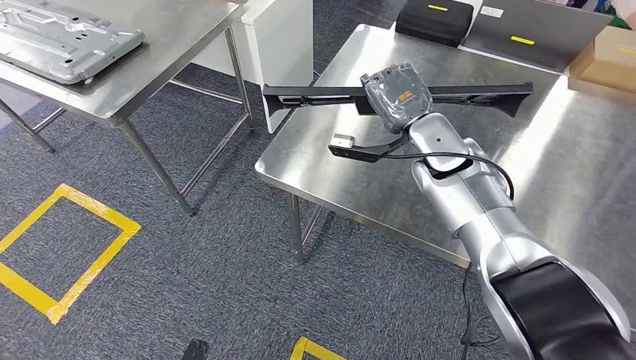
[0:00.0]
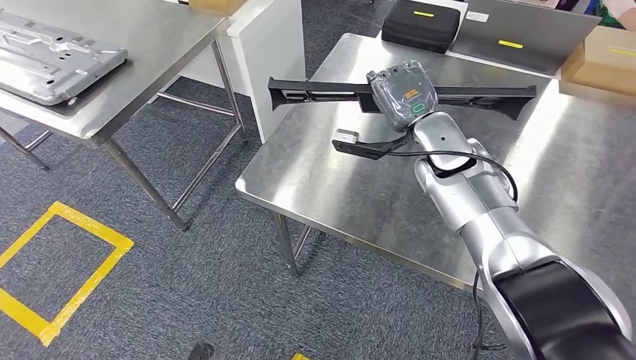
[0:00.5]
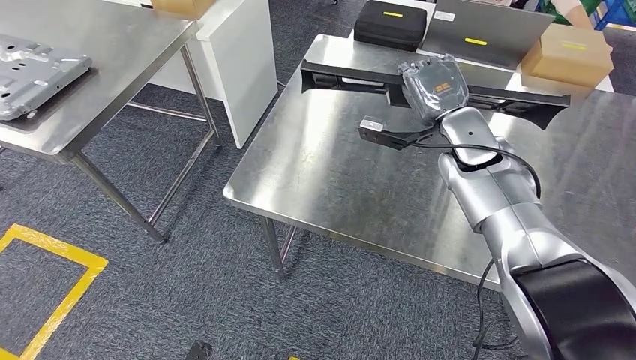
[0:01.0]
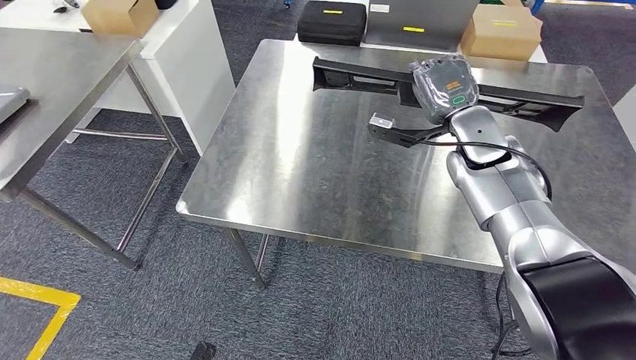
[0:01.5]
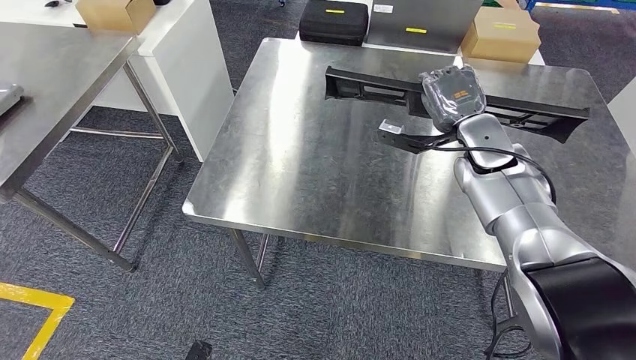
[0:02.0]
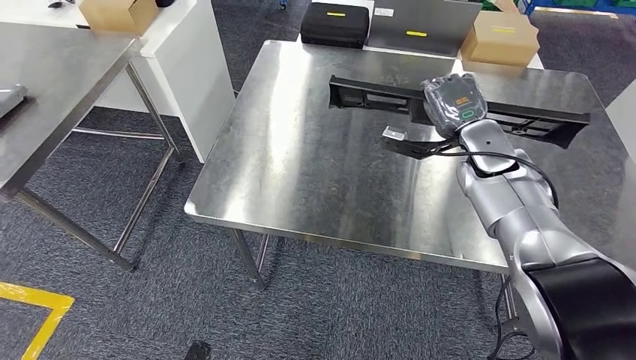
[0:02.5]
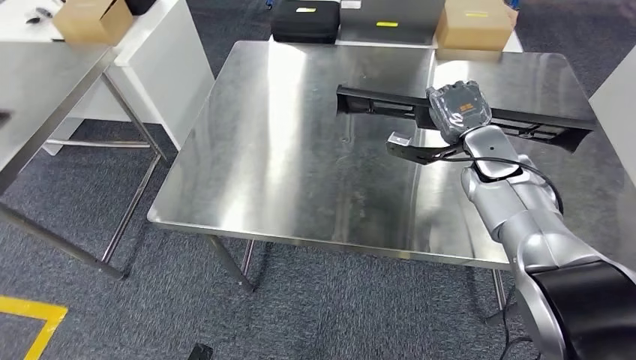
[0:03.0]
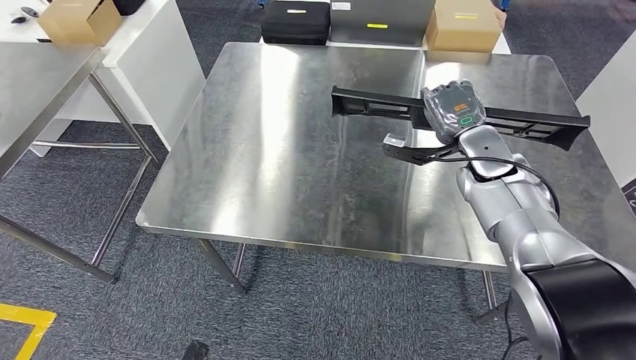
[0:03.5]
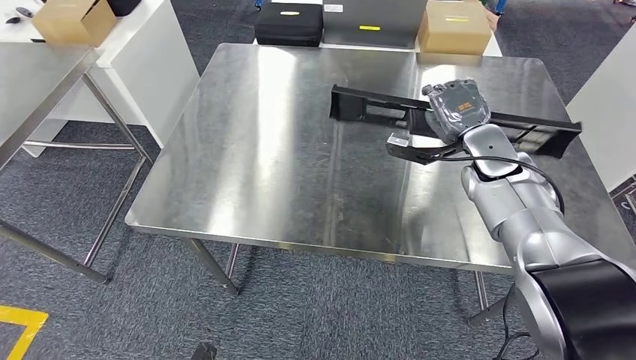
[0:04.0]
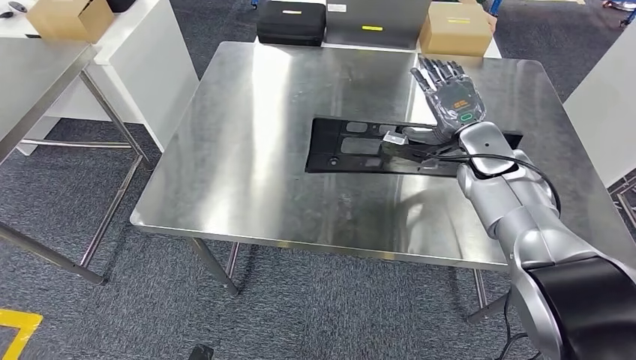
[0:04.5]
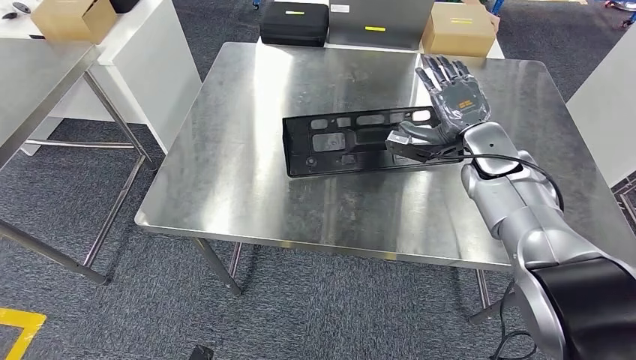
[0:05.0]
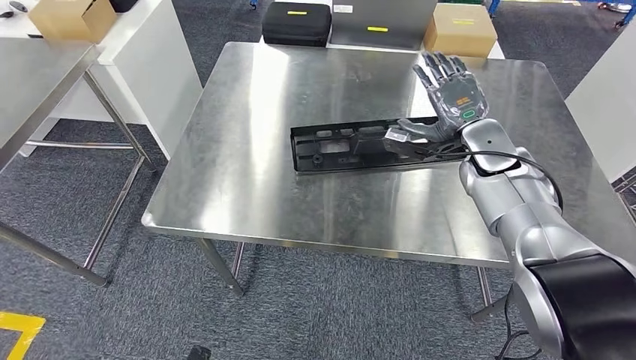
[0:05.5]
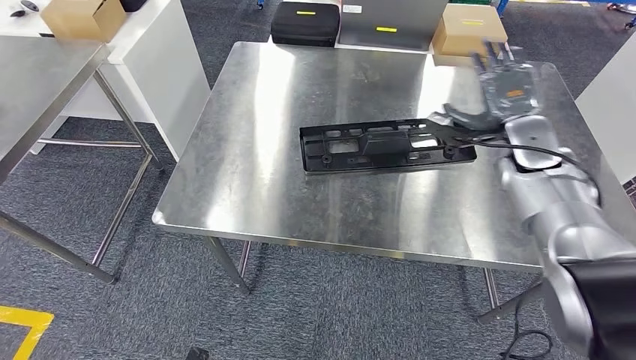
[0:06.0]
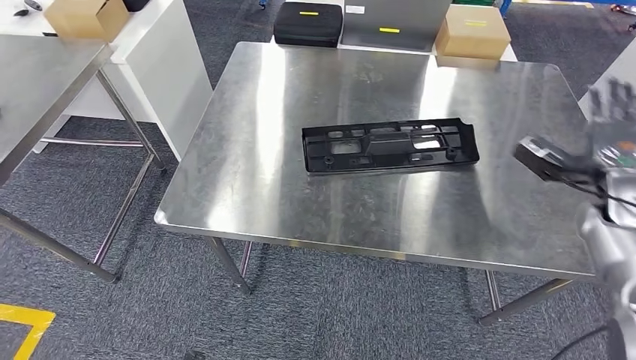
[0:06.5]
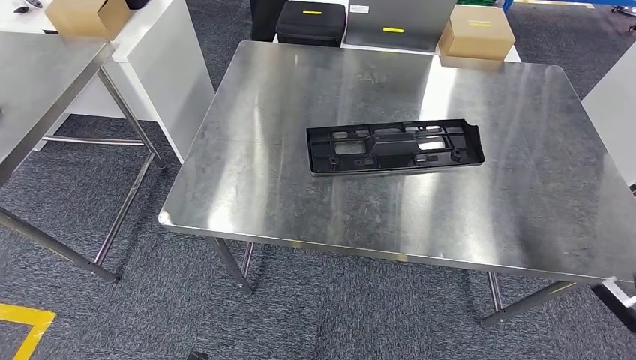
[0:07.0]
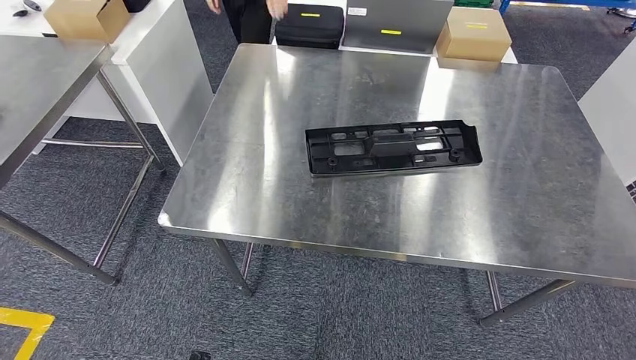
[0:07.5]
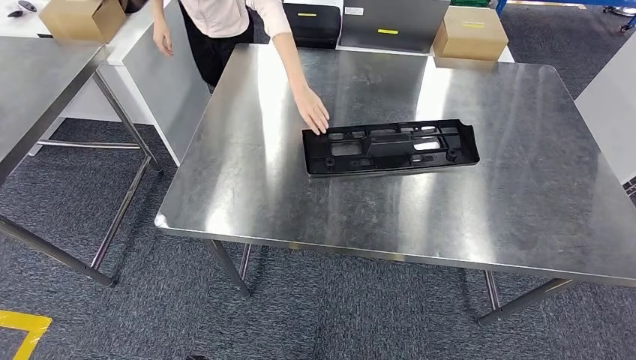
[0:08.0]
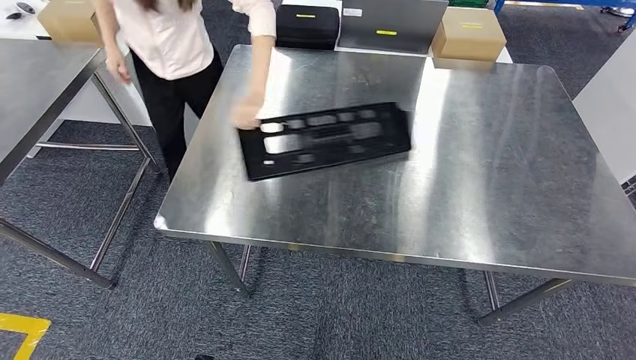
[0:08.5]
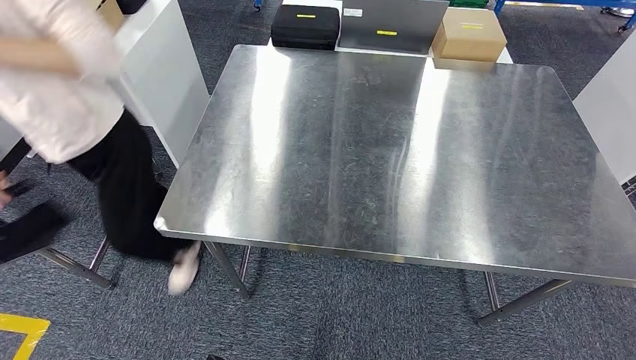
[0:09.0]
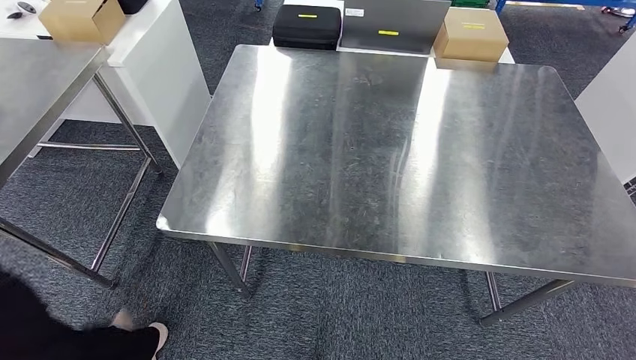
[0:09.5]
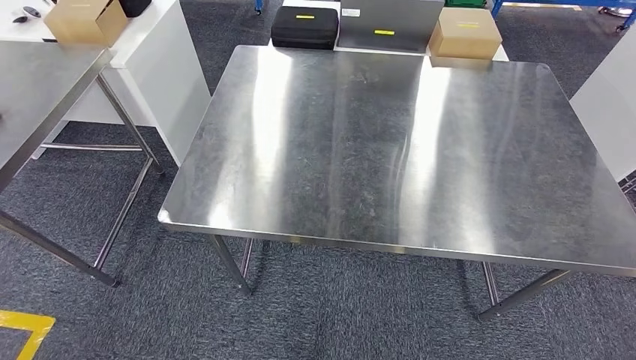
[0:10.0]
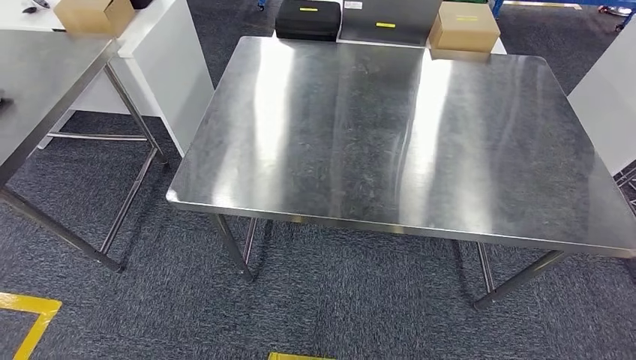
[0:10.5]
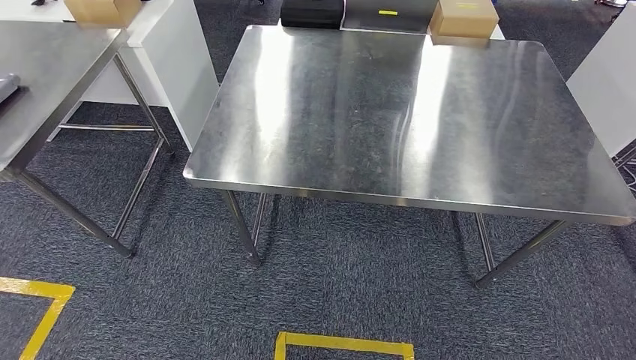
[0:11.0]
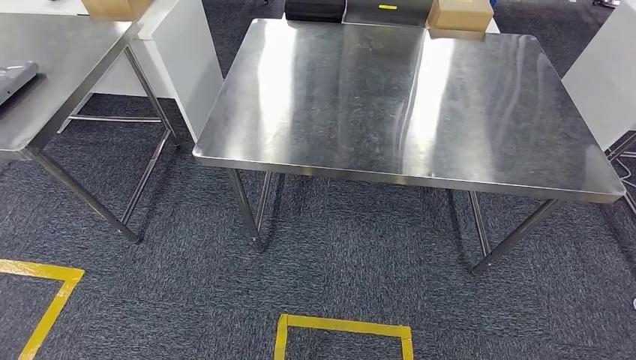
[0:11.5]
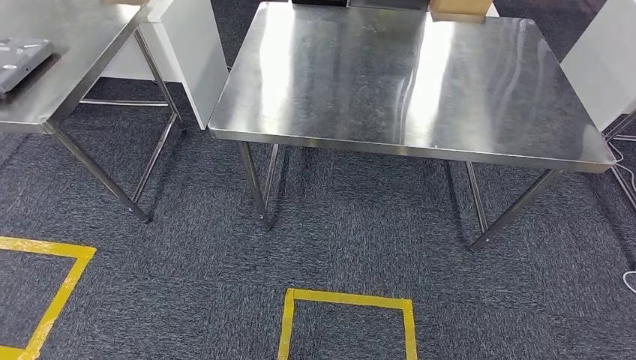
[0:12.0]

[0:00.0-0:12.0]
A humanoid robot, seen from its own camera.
Step, 0:00.0 to 0:09.5: Insert the large material into the corresponding slot on the workbench.

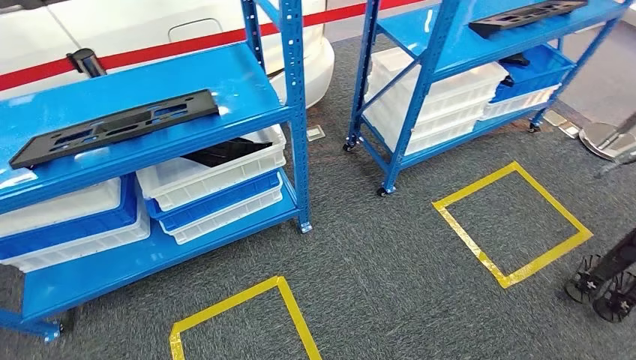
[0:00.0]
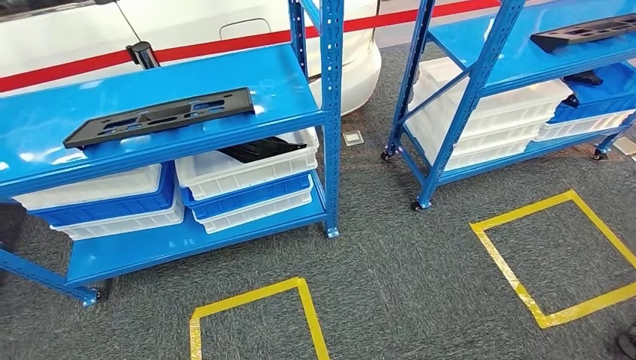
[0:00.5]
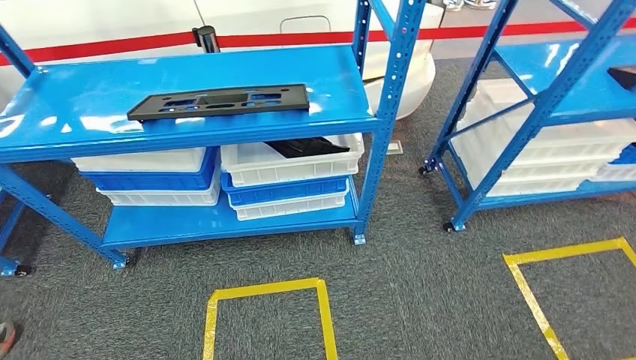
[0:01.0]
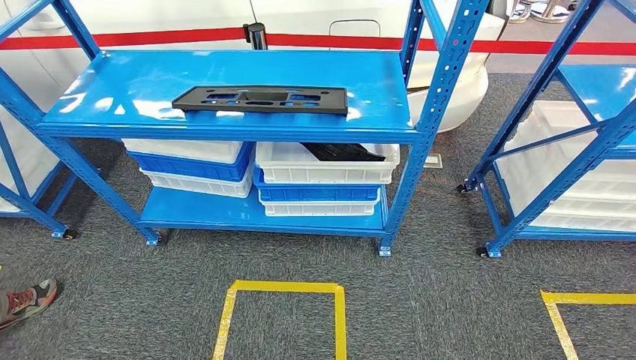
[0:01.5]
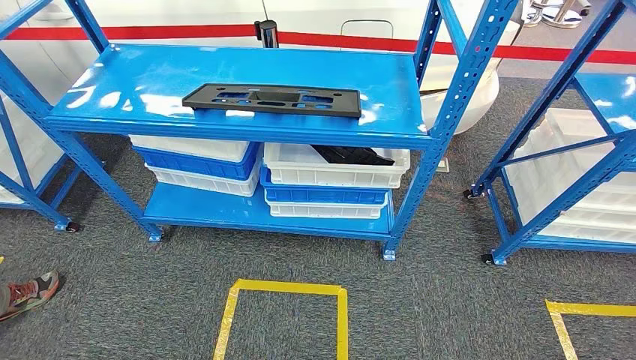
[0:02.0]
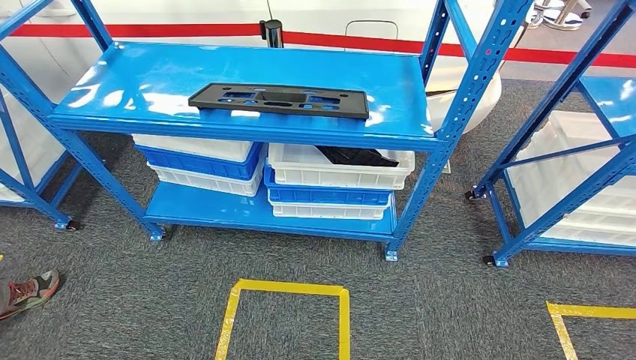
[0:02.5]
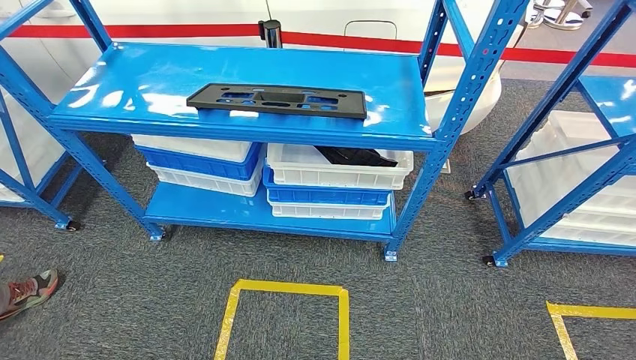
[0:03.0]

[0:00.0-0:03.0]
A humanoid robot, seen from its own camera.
Step, 0:00.0 to 0:03.0: Move to the initial position of the shelf.
